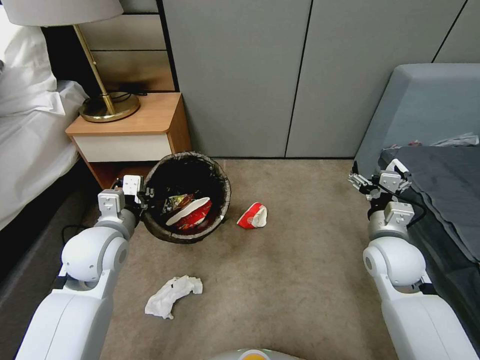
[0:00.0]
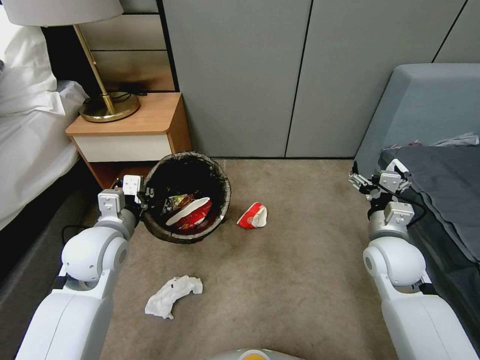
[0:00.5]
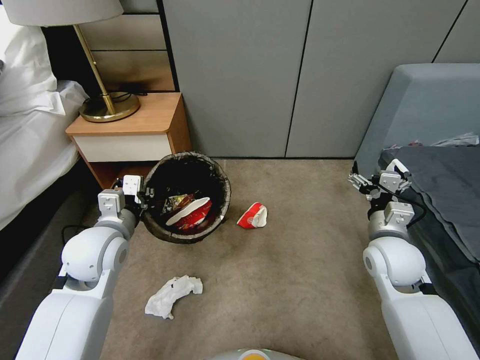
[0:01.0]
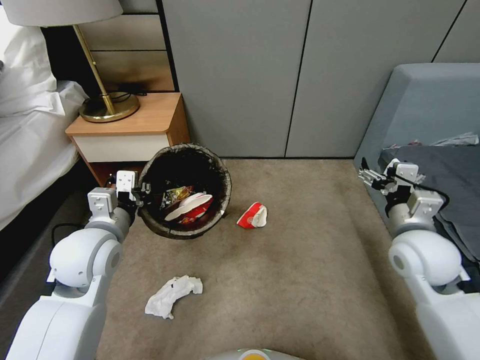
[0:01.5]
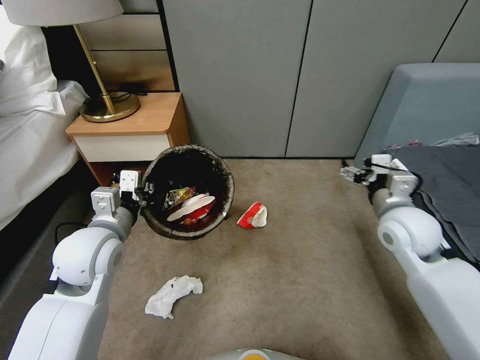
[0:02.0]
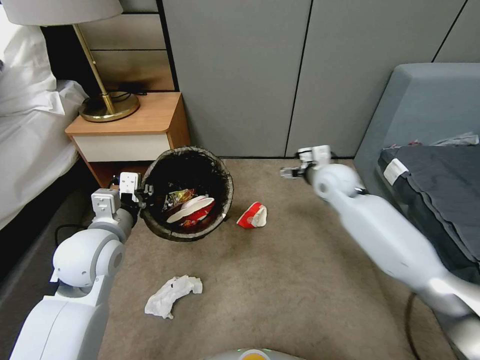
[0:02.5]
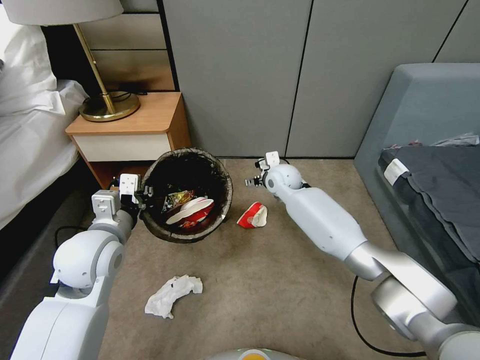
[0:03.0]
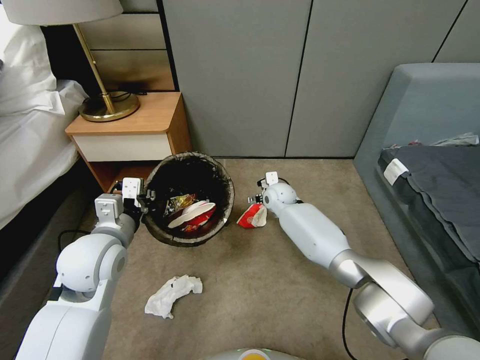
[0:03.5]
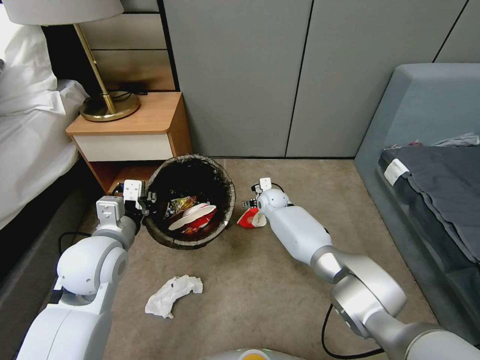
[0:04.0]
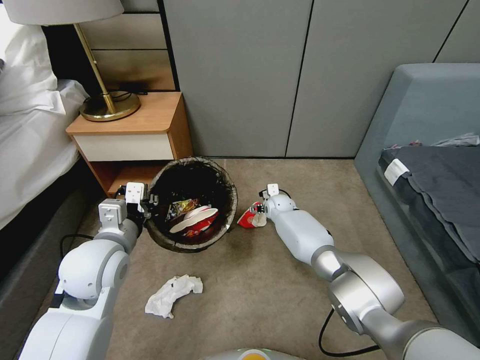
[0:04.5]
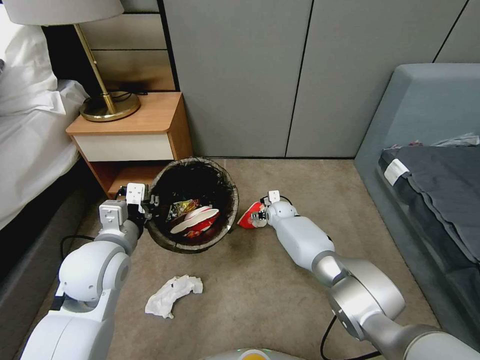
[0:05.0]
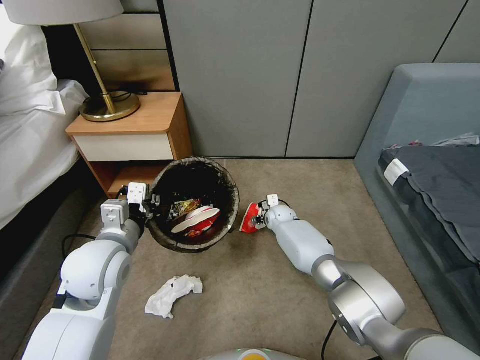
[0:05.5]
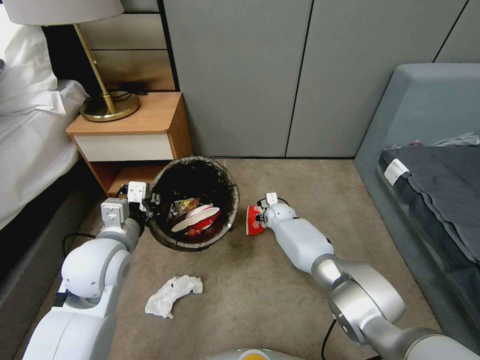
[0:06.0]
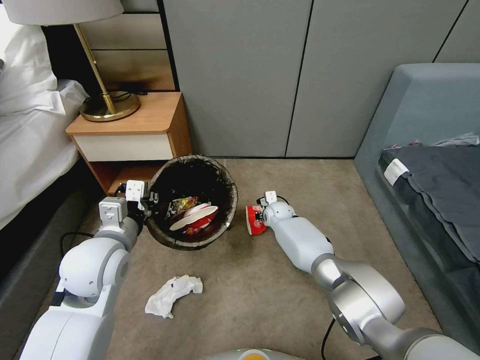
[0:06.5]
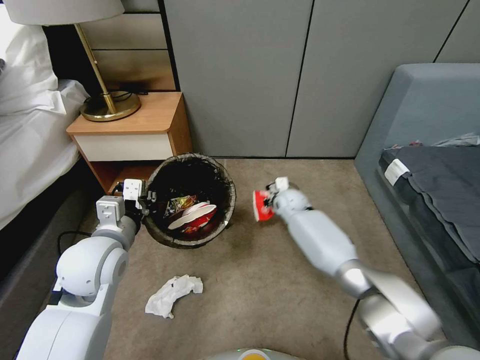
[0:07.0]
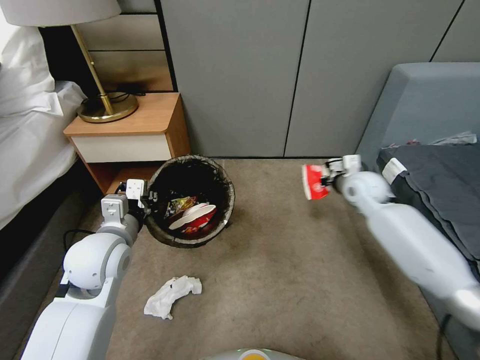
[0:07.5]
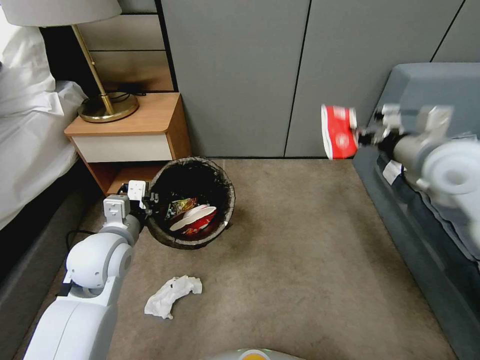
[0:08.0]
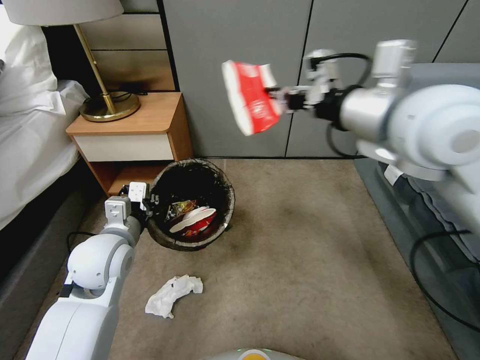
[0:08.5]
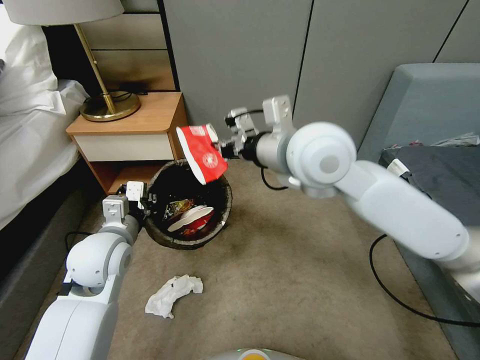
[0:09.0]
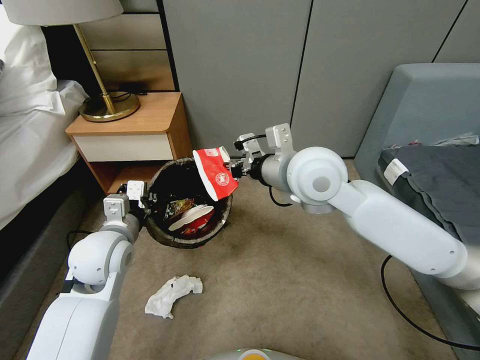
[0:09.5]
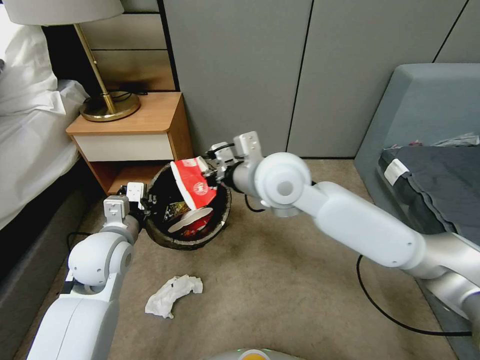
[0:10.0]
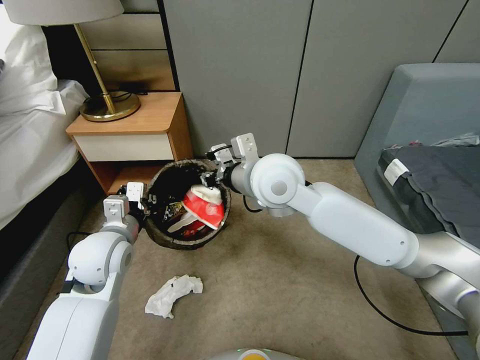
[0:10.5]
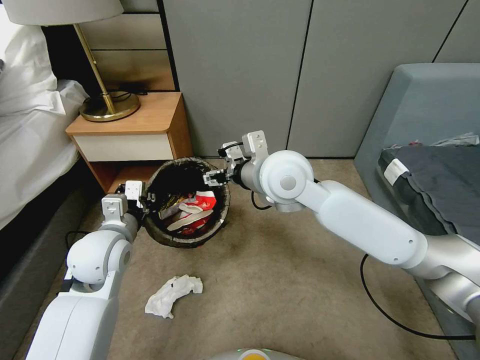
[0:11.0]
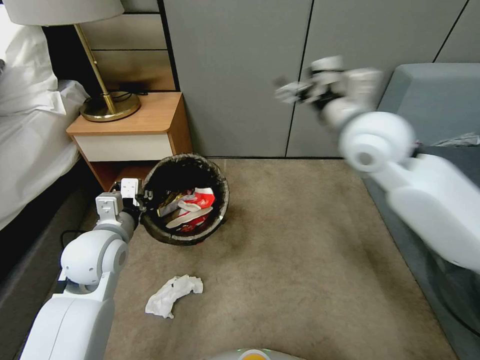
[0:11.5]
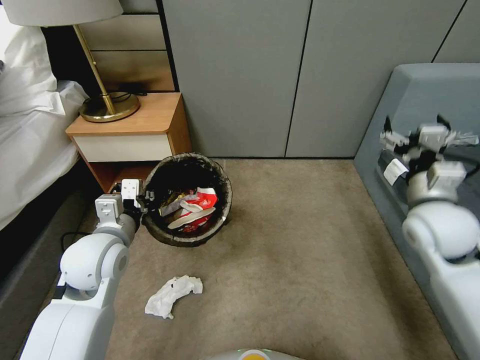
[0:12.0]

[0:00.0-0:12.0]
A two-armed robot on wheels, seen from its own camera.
Task of the whole recording: Pick up the trash bin, then pick up the garbage from the floor and place it into the trash bin.
0:00.0 to 0:02.0: The right gripper is displaced upward by some 5 cm.
0:02.0 to 0:04.0: The right gripper moves to the left, forward and downward, roughly 35 cm.
0:04.0 to 0:06.0: The right gripper goes approximately 5 cm downward, and closes.
0:06.0 to 0:08.0: The right gripper goes approximately 50 cm upward, to the right and backward.
0:08.0 to 0:10.0: The right gripper travels to the left by approximately 25 cm.
0:10.0 to 0:12.0: The right gripper travels to the right by some 30 cm, and opens up.

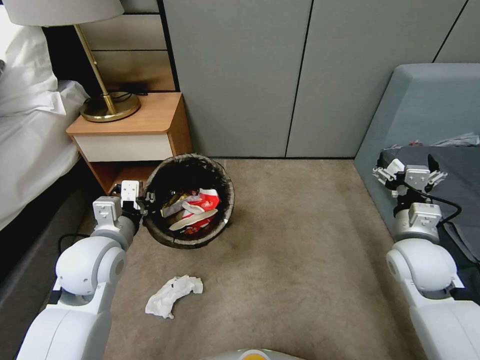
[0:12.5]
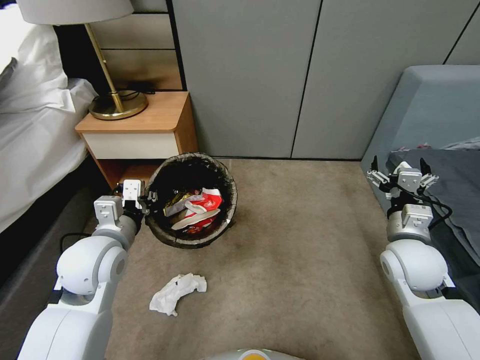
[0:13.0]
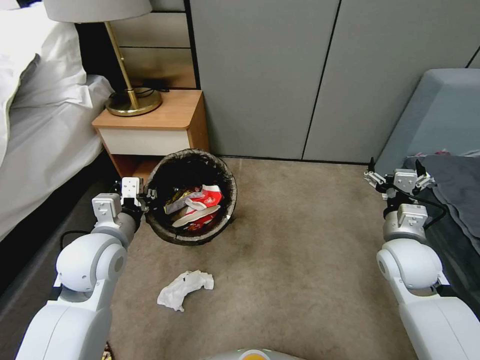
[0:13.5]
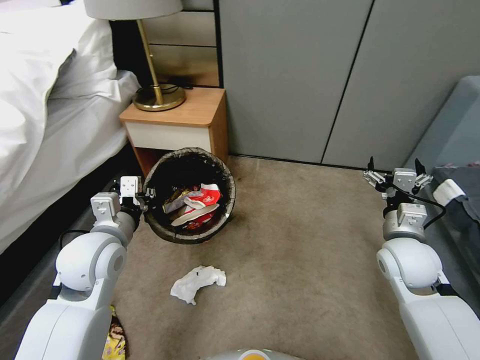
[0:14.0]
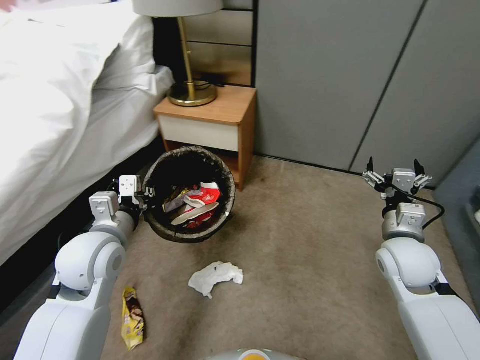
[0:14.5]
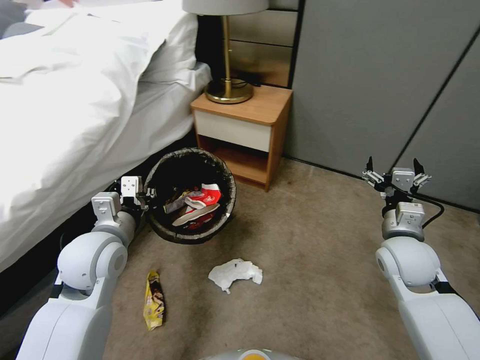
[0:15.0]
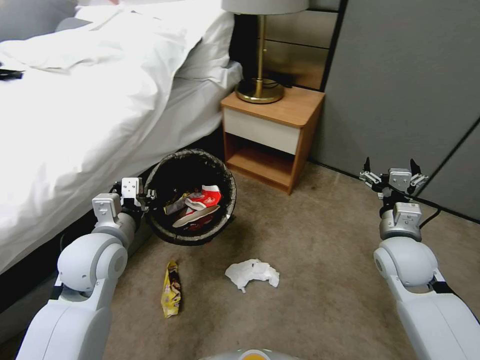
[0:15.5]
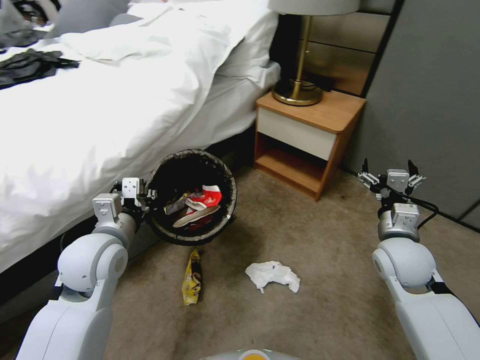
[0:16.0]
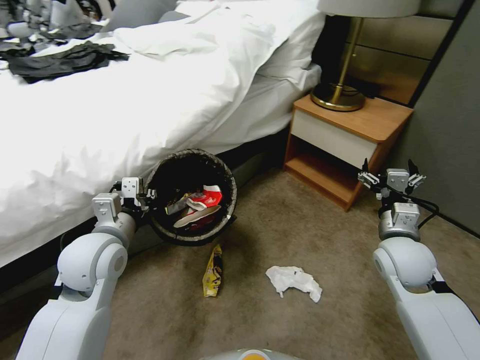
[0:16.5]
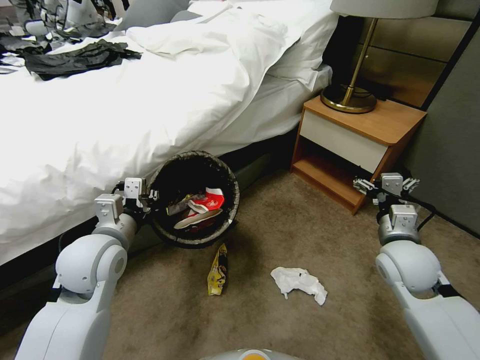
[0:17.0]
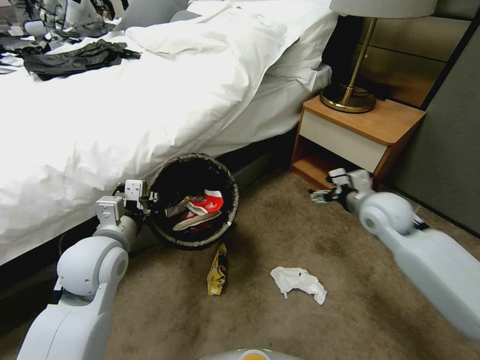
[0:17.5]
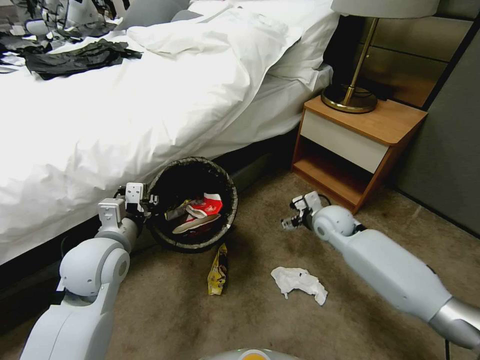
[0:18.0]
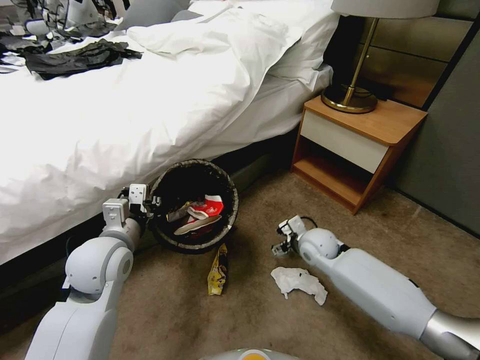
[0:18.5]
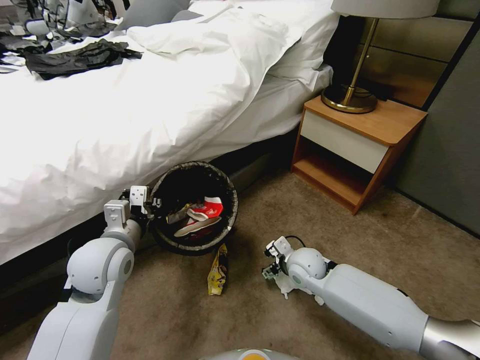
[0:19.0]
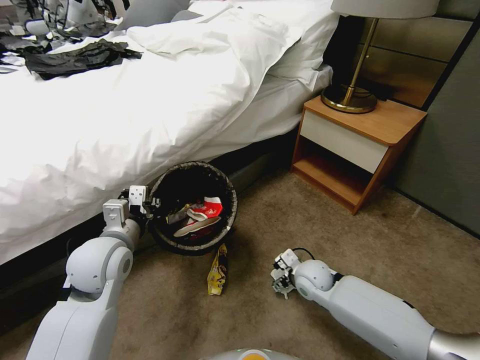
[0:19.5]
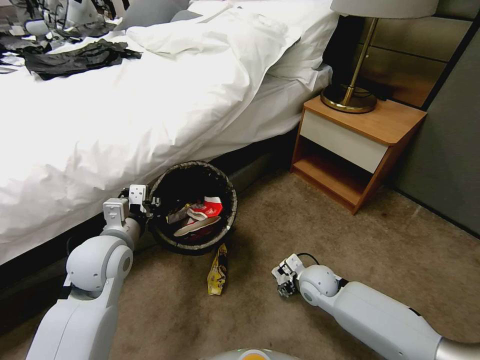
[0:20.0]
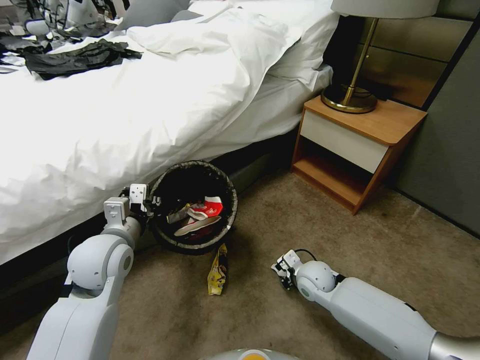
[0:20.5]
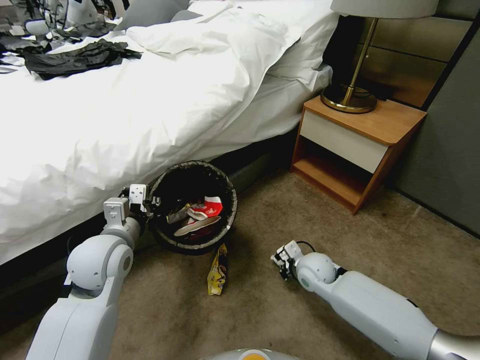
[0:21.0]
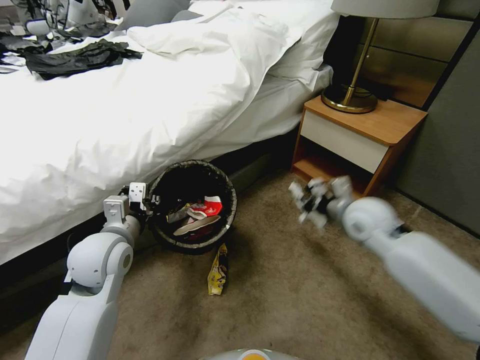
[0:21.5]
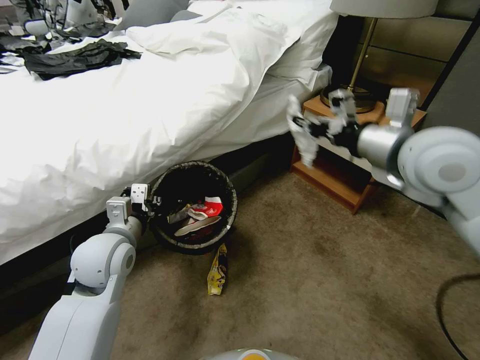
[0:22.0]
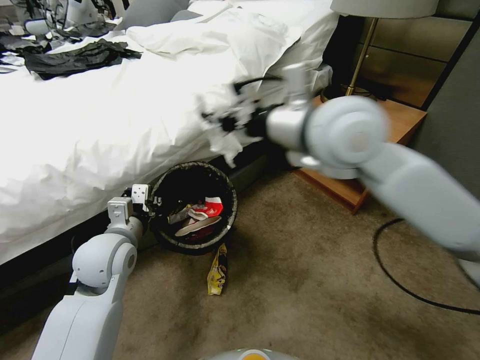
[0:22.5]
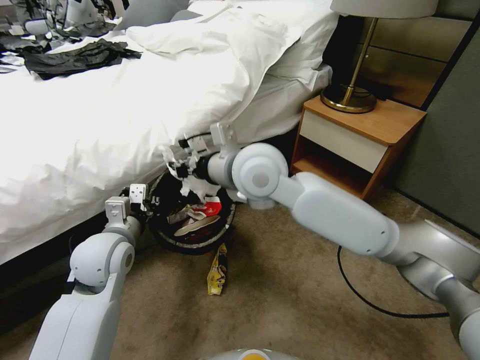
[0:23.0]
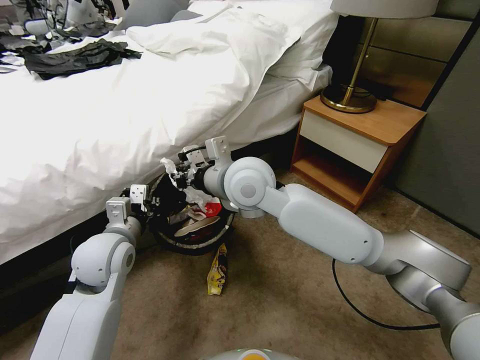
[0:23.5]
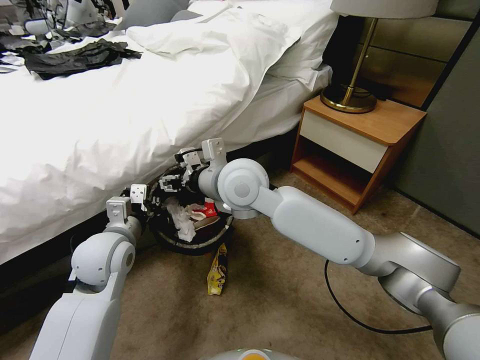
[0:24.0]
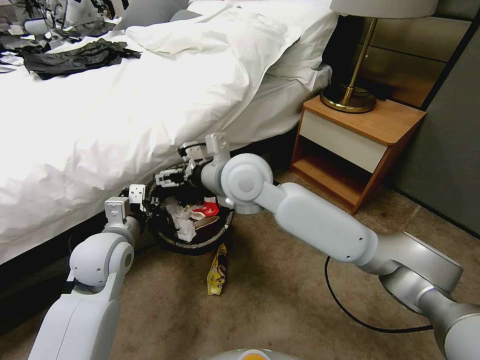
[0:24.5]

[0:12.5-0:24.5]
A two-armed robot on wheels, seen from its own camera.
Task of the whole recording: Pick up the trash bin, then pick up the garbage from the floor and place it into the trash bin.
0:16.5 to 0:18.5: The right gripper shifts approximately 20 cm to the left, downward and forward.
0:18.5 to 0:20.5: The right gripper heads backward and downward, covering approximately 10 cm, and closes up.
0:20.5 to 0:22.5: The right gripper moves upward, roughly 50 cm.
0:22.5 to 0:24.5: The right gripper shifts some 15 cm downward and to the left, and opens up.

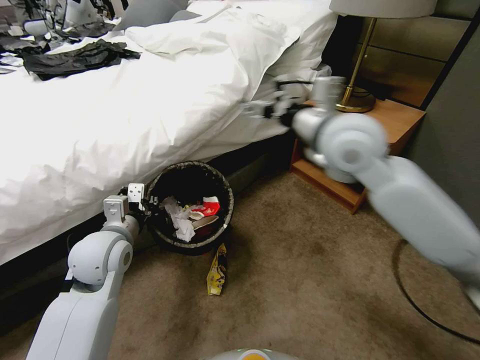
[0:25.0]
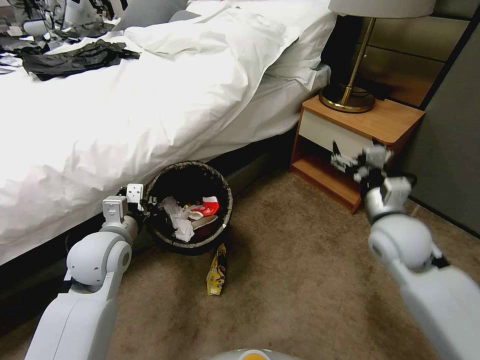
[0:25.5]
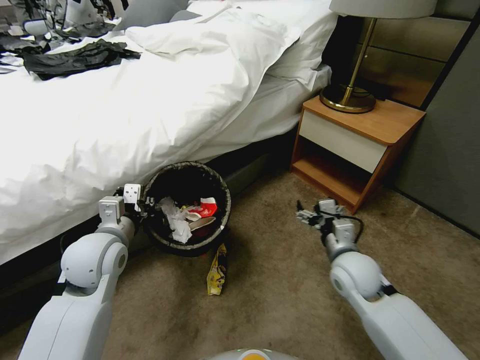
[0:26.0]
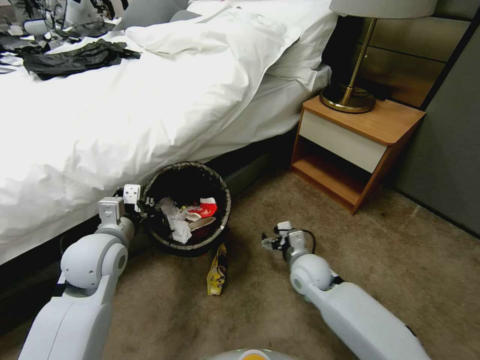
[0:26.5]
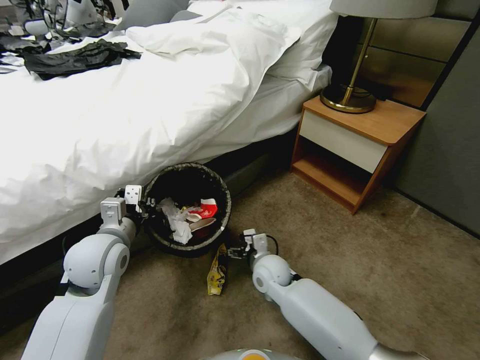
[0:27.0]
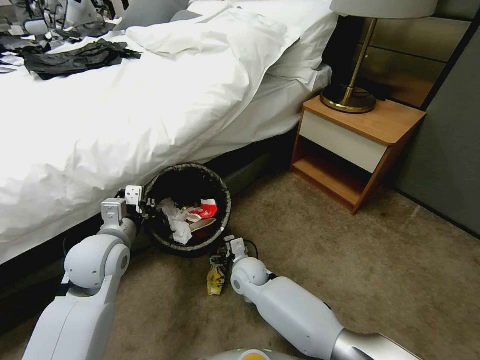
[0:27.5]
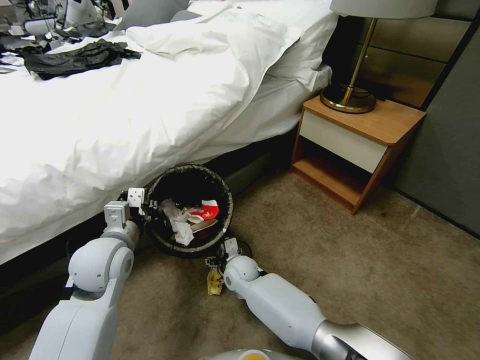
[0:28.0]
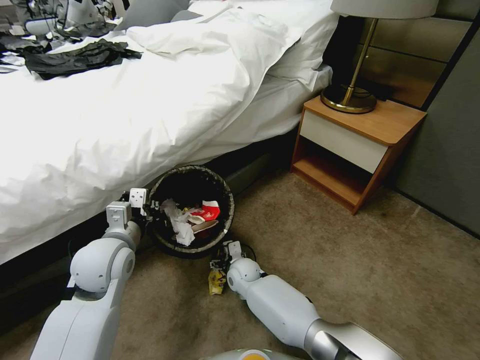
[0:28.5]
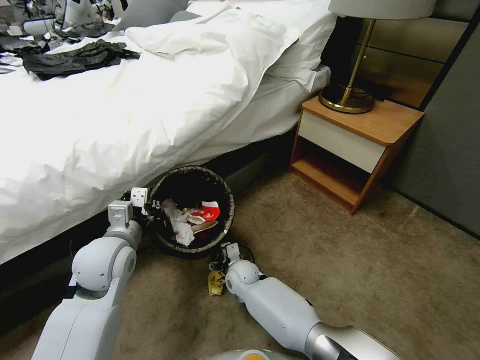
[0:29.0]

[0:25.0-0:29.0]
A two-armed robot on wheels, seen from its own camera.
Task of the whole recording: Pick up the trash bin, then pick up the garbage from the floor and place it into the trash bin.
0:25.0 to 0:27.0: The right gripper goes some 40 cm downward.
0:27.0 to 0:29.0: The right gripper shifts some 10 cm downward and to the left.
